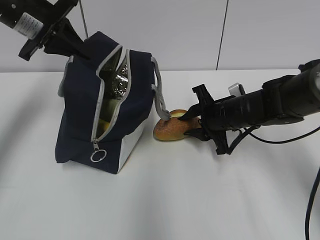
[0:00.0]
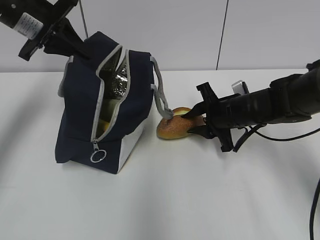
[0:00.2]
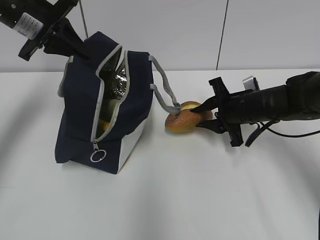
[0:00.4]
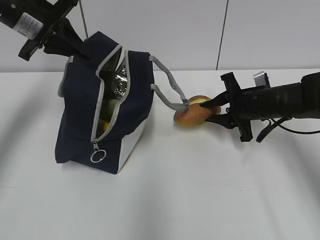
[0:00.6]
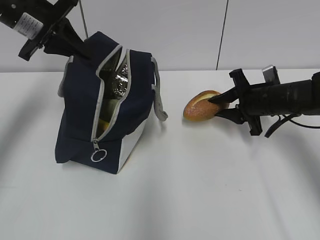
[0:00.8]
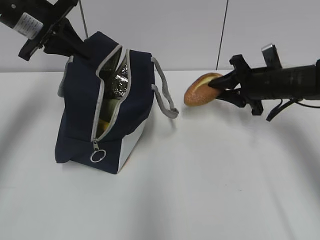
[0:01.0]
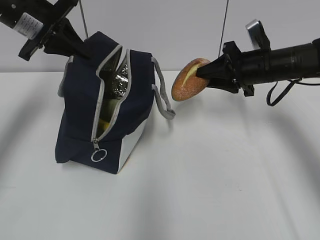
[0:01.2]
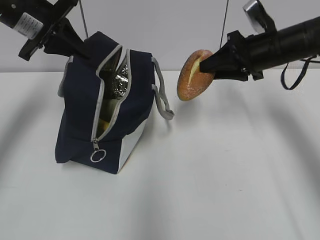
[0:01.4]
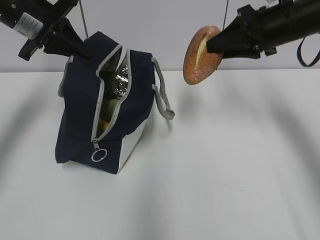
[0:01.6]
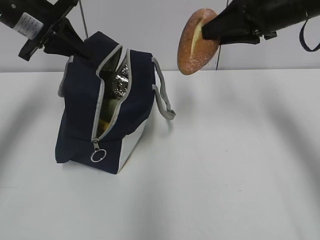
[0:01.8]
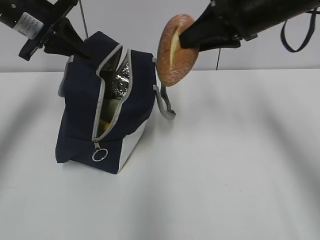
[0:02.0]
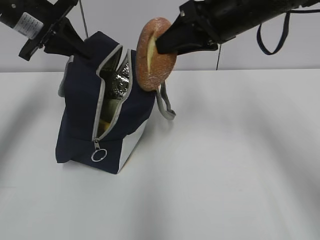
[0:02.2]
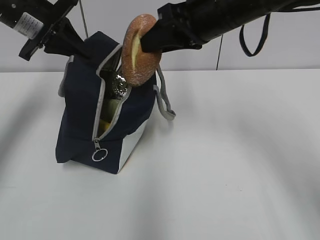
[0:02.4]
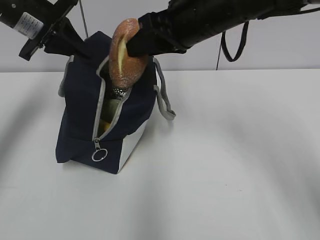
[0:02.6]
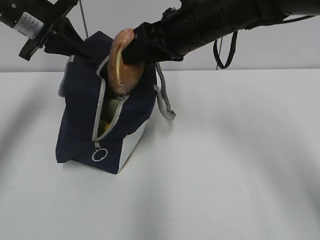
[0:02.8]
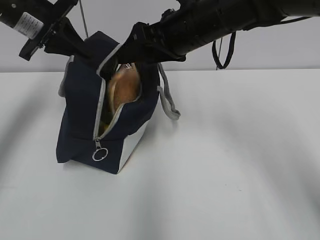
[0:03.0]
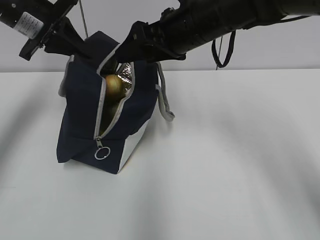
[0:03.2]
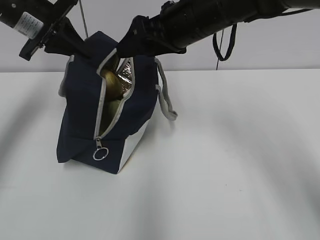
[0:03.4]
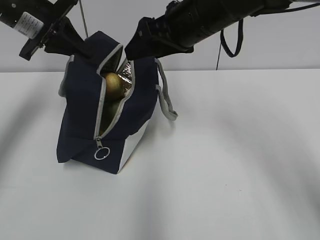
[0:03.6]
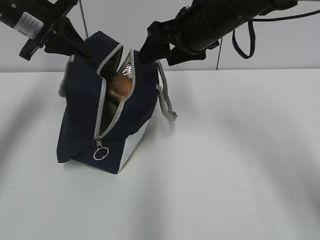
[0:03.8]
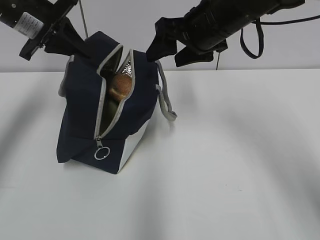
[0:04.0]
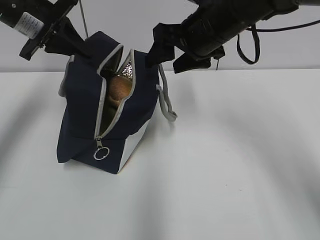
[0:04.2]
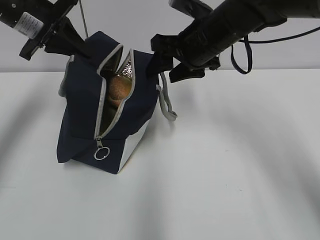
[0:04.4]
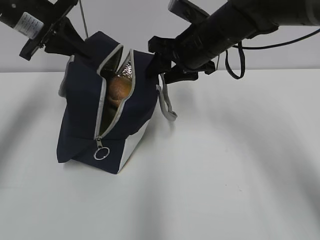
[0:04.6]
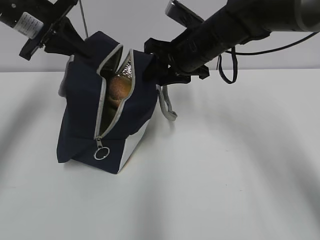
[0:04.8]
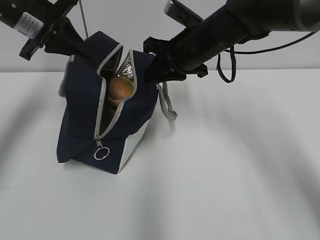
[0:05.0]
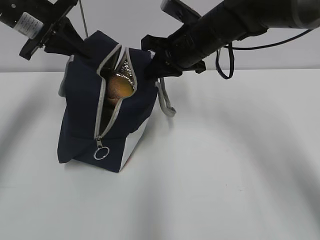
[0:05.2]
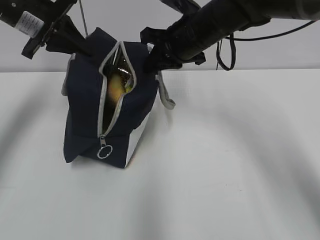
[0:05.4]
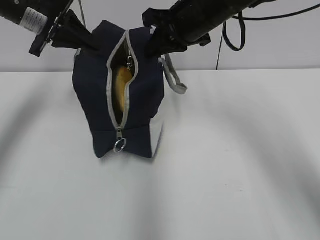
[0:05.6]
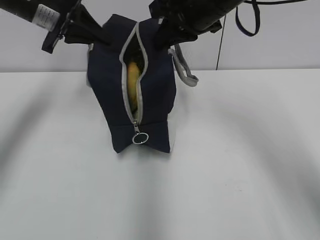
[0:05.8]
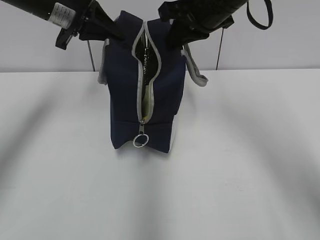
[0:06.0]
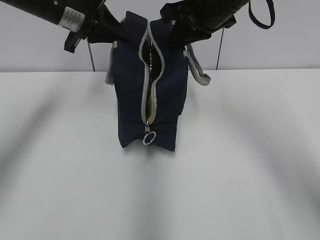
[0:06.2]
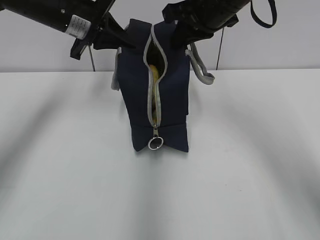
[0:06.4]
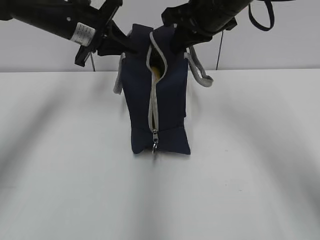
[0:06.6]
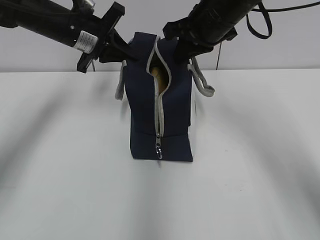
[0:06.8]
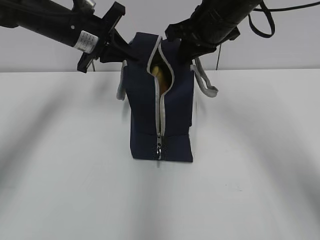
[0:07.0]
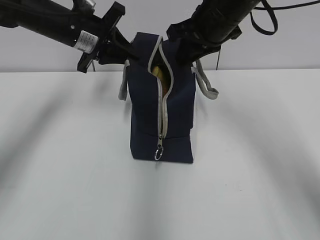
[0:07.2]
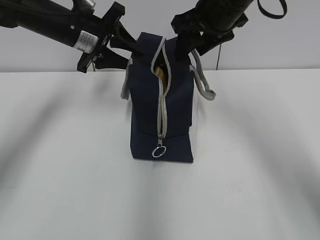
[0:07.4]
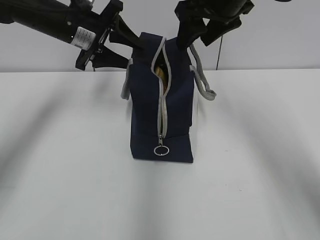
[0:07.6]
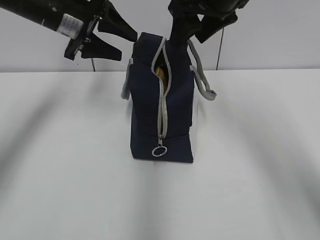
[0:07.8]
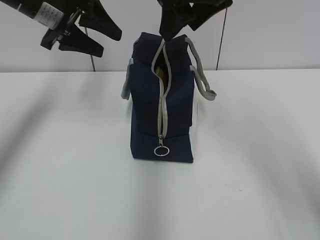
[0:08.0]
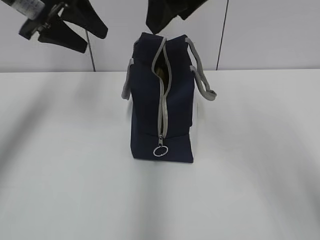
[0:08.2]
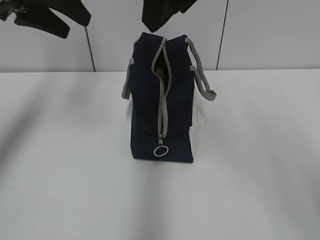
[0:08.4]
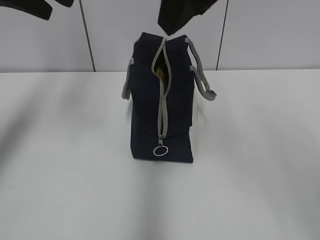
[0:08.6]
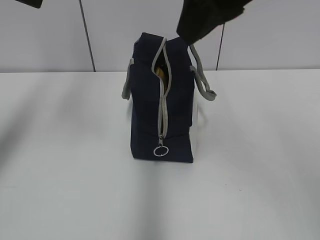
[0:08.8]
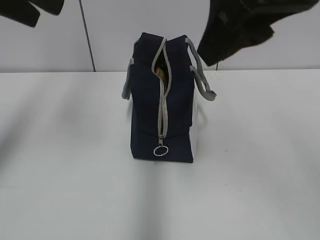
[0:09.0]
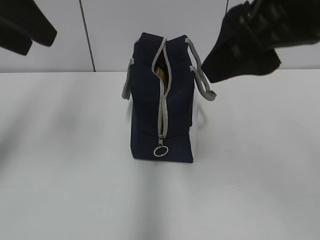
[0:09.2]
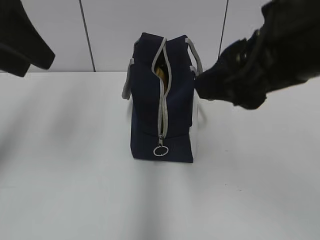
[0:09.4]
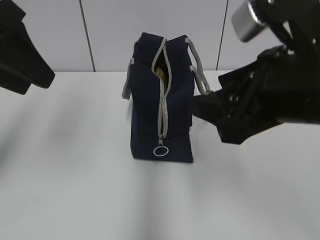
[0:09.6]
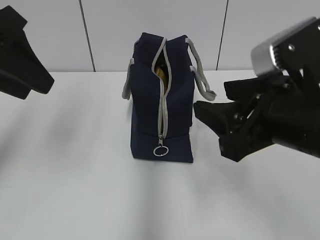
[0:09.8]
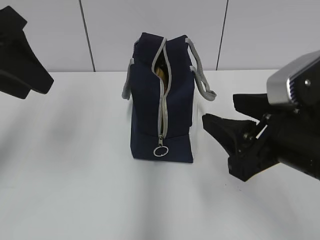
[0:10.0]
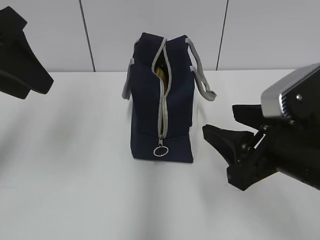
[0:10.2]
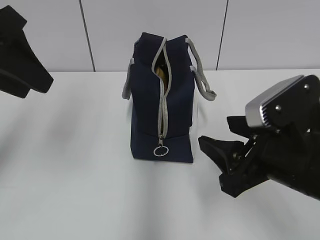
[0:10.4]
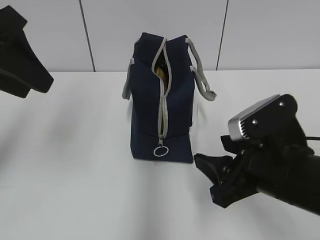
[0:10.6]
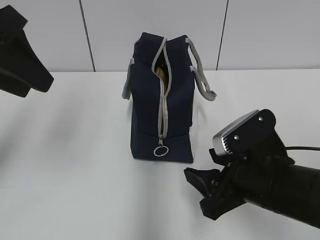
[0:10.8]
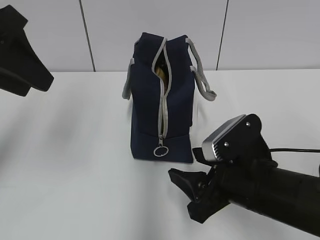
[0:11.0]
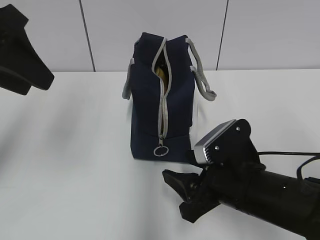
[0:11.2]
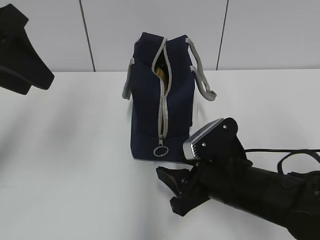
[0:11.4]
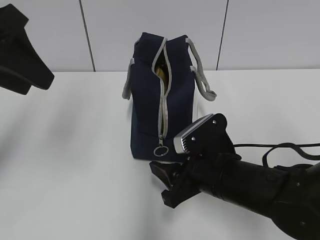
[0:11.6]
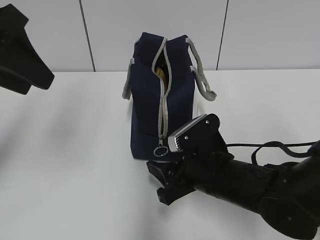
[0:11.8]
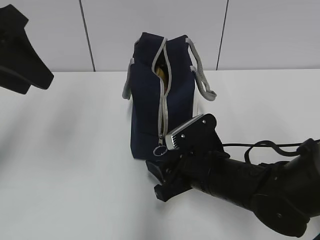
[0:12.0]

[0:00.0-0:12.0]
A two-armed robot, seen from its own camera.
Step, 0:03.4 to 0:05.2: Grab the lunch bag with your right hand.
Step, 0:05.4 to 0:07.2: Move the lunch bag to the right.
0:00.0 to 0:01.6: The right gripper shifts approximately 20 cm upward and to the right.
0:01.6 to 0:03.0: The right gripper shifts approximately 15 cm to the left, and opens.
0:04.4 to 0:06.0: The right gripper heads upward, covering about 5 cm, and closes its fingers.
0:06.0 to 0:07.6: The left gripper ends up some 5 cm from where it was, and opens up. The right gripper opens its fingers.
0:07.6 to 0:09.0: The left gripper goes roughly 20 cm backward and upward, while the right gripper is displaced backward by some 20 cm.
0:09.0 to 0:10.4: The right gripper moves downward, about 20 cm; the left gripper shifts some 5 cm downward.
0:10.4 to 0:12.0: The right gripper travels downward, forward and to the left by roughly 15 cm.

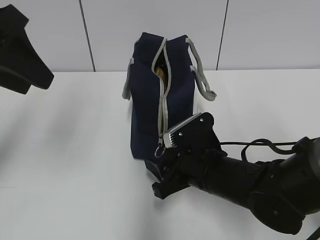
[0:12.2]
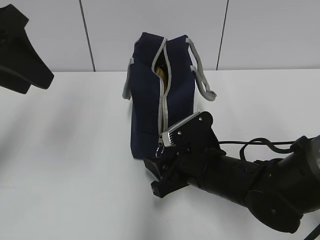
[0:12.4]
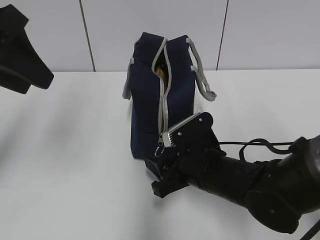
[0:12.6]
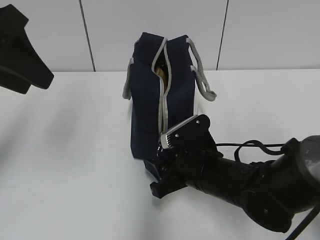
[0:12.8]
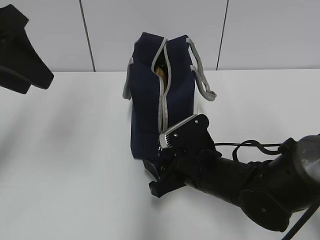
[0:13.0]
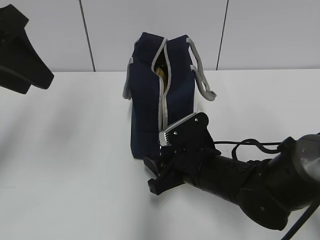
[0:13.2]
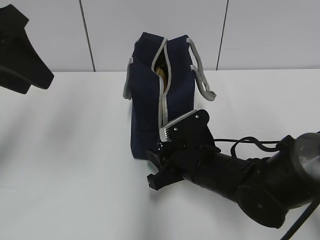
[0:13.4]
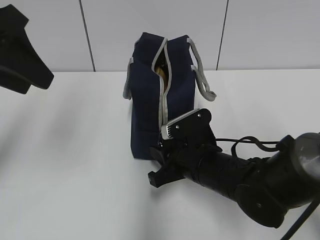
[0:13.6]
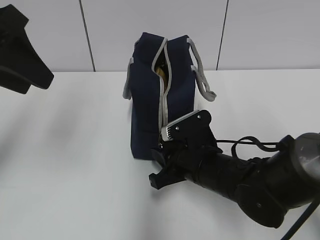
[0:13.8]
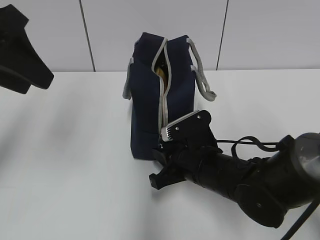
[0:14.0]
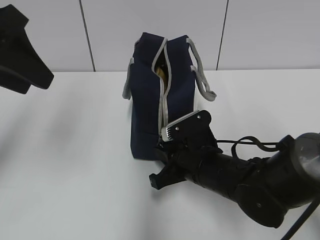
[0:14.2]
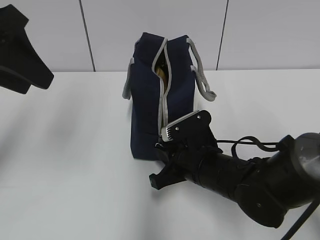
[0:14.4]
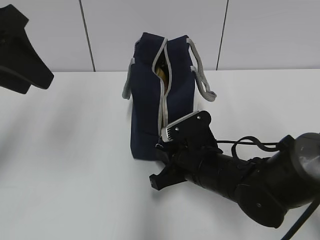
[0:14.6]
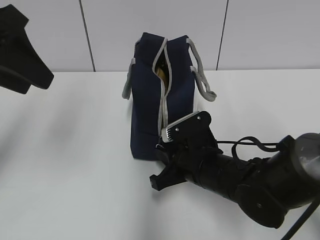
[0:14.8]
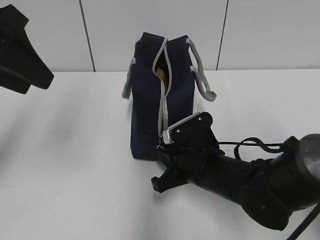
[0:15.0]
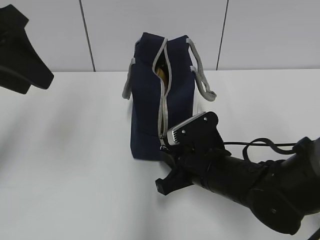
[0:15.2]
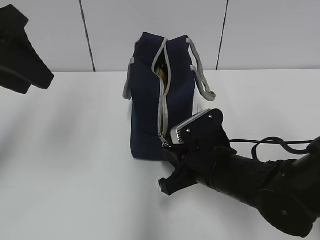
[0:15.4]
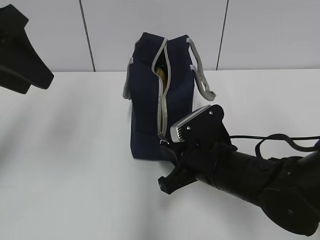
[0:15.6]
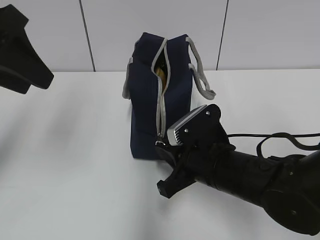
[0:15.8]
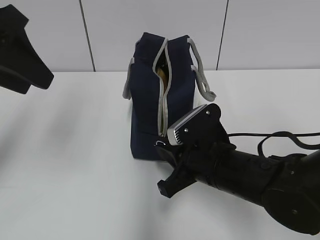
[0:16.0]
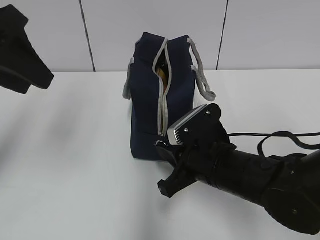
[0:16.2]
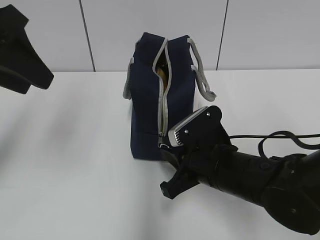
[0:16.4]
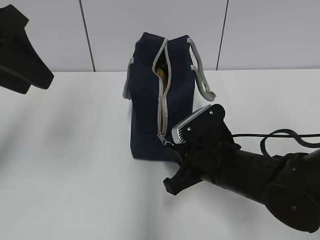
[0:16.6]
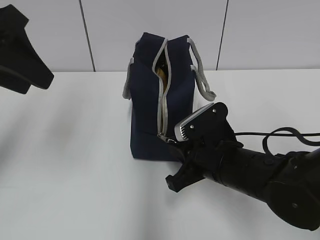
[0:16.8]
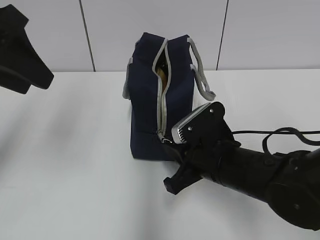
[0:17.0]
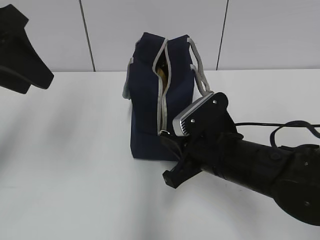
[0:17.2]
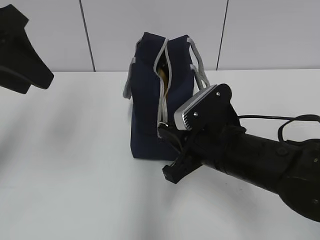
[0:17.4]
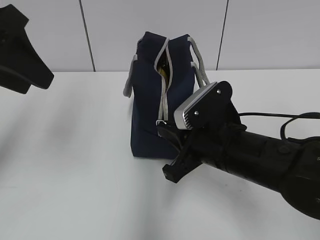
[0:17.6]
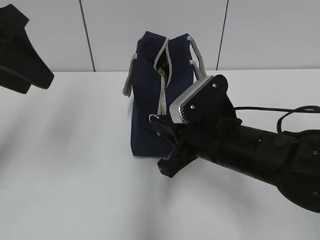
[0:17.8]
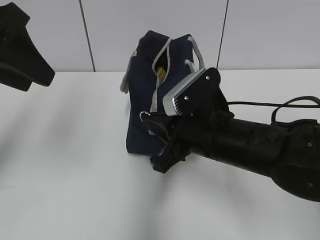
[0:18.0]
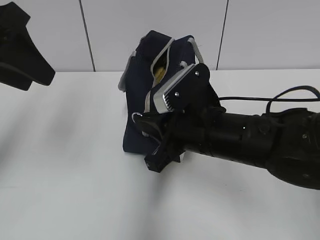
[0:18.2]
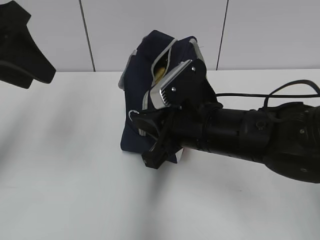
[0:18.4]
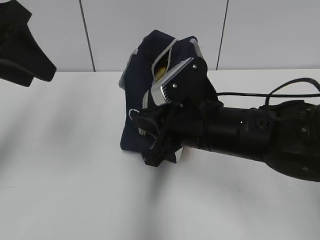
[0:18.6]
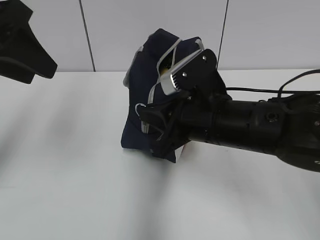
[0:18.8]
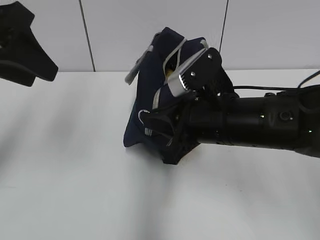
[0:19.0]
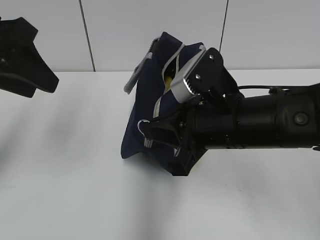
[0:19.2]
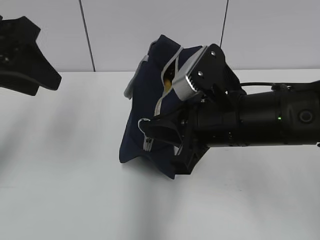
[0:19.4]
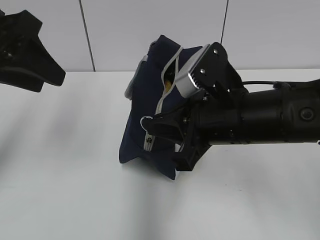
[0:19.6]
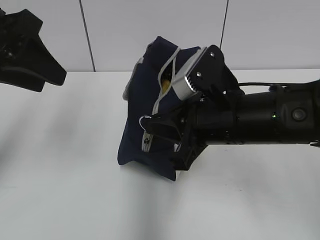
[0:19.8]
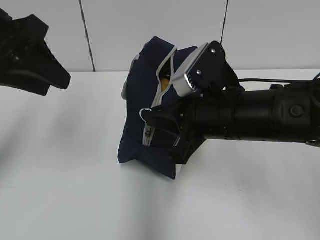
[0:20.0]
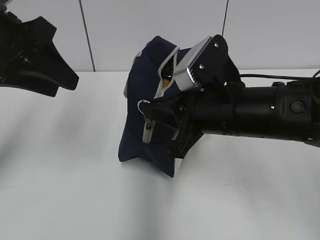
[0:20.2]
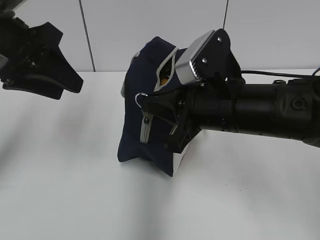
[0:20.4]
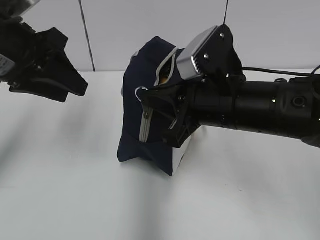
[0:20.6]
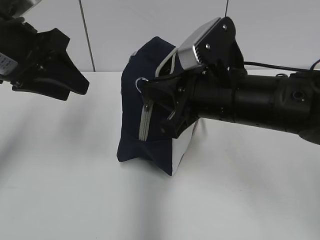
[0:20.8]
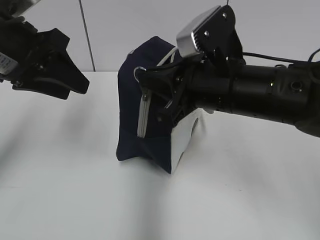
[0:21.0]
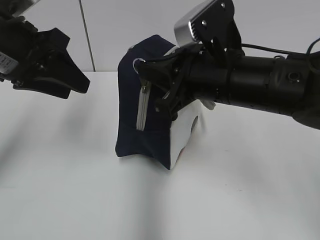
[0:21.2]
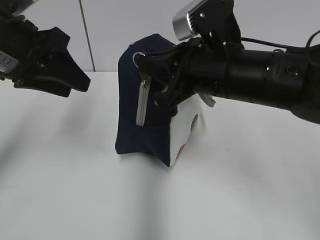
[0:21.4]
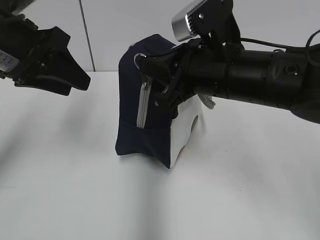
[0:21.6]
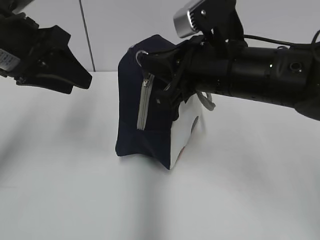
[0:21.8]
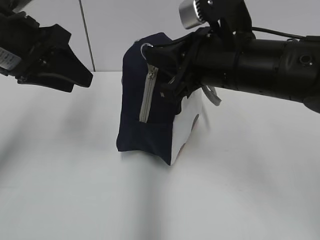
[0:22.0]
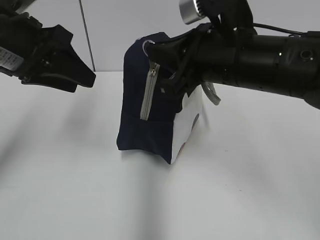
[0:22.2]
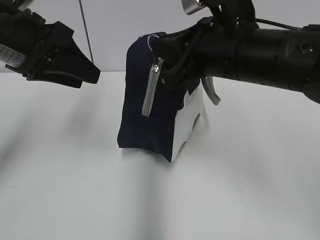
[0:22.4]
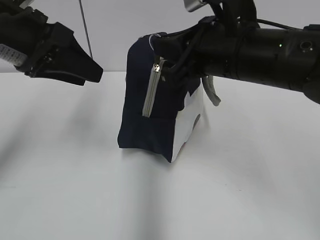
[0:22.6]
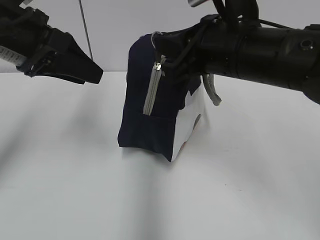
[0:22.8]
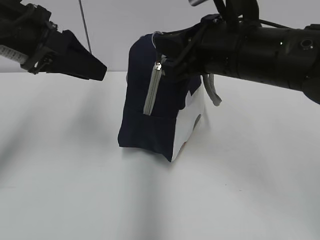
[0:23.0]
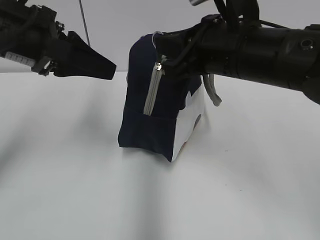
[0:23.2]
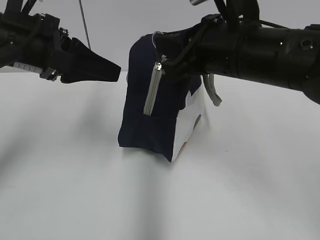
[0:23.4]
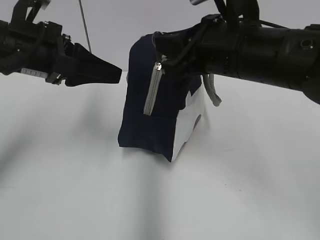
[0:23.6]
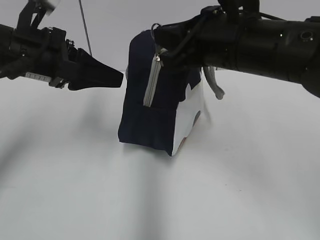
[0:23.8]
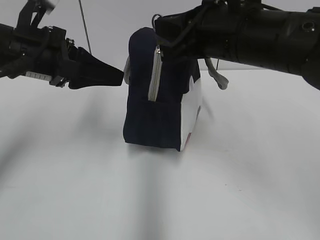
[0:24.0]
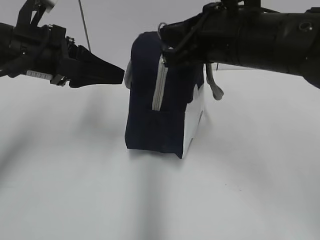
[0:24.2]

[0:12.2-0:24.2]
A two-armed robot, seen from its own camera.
0:12.2 to 0:13.8: The right gripper closes its fingers.
0:13.8 to 0:15.2: Both grippers stay about where they are.
0:15.2 to 0:16.6: The grippers make only small movements.
0:16.6 to 0:18.2: The right gripper goes about 5 cm upward.
0:18.2 to 0:19.8: The grippers make only small movements.
0:21.2 to 0:22.6: The grippers move only a little.
